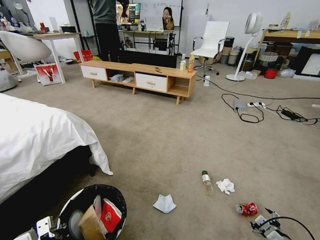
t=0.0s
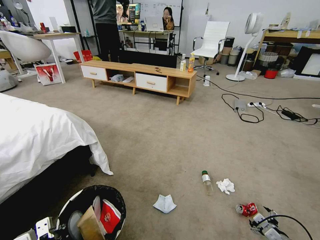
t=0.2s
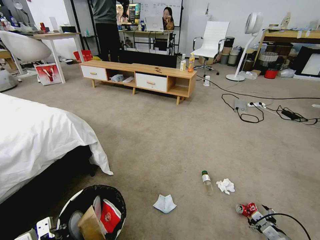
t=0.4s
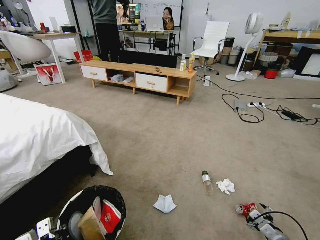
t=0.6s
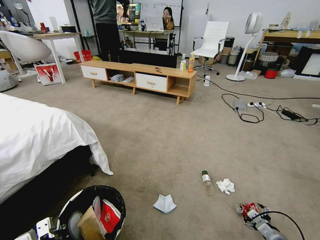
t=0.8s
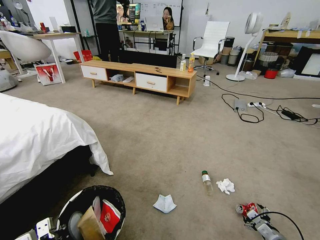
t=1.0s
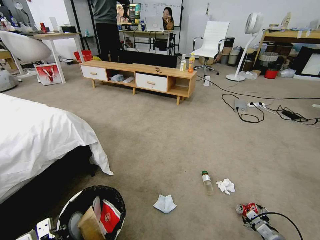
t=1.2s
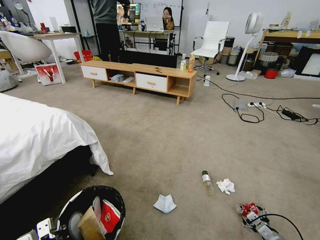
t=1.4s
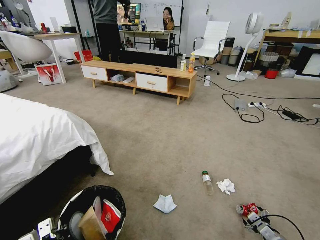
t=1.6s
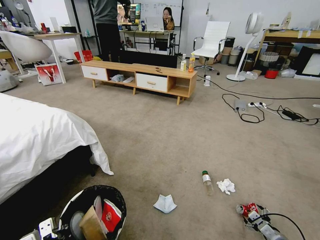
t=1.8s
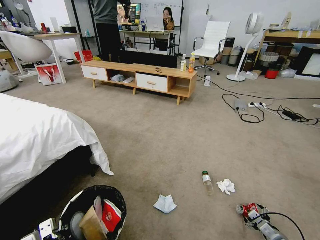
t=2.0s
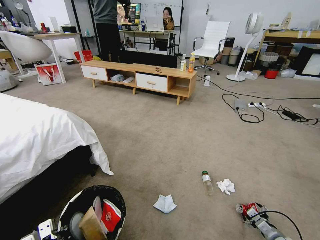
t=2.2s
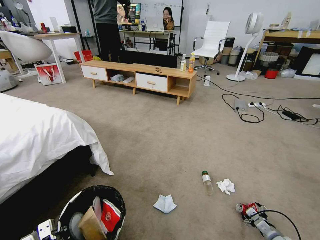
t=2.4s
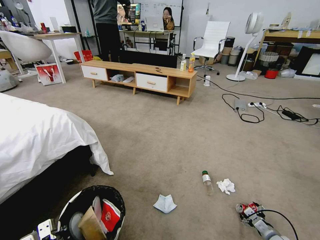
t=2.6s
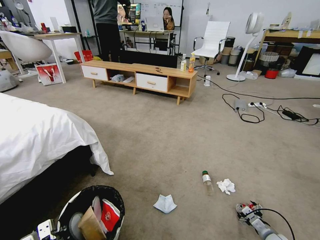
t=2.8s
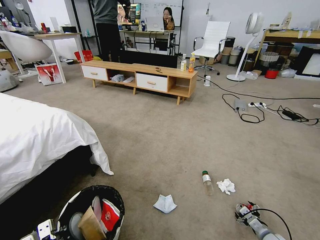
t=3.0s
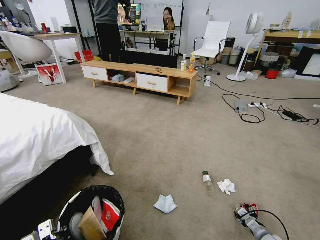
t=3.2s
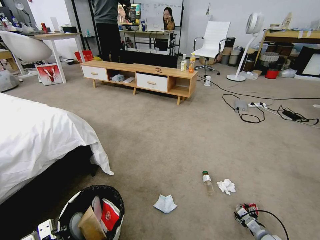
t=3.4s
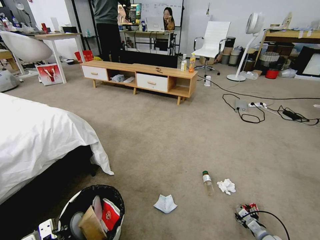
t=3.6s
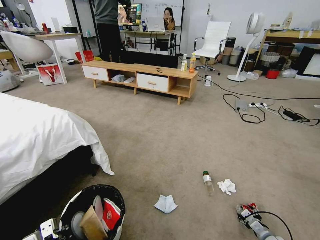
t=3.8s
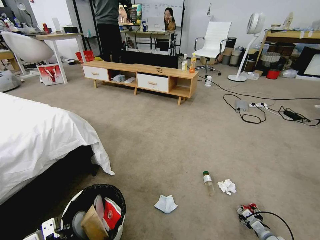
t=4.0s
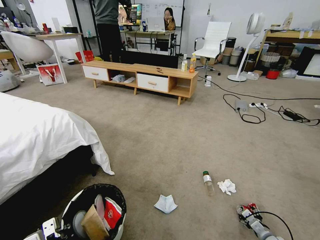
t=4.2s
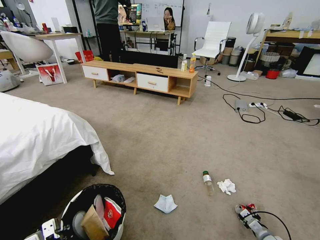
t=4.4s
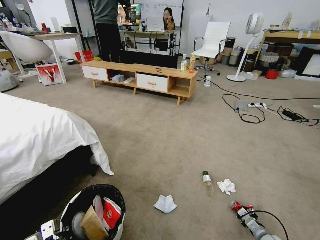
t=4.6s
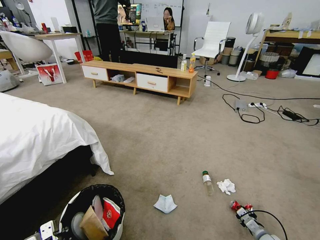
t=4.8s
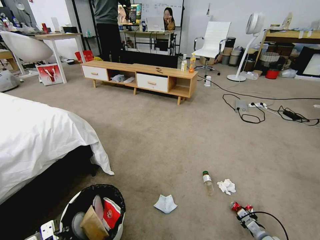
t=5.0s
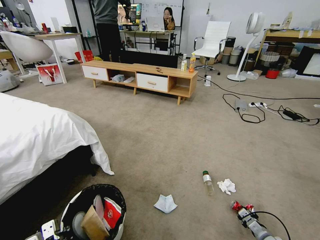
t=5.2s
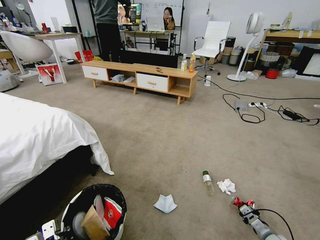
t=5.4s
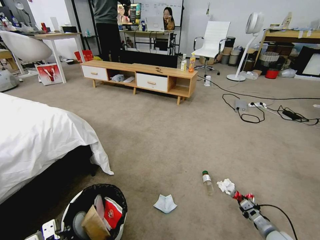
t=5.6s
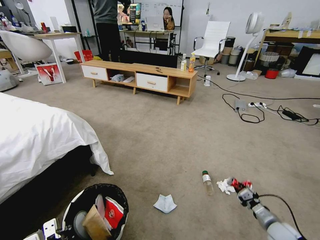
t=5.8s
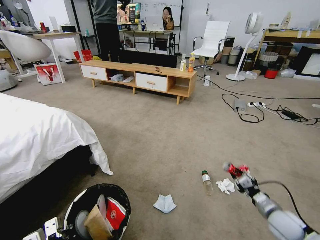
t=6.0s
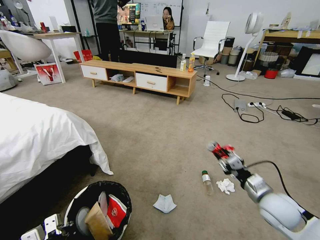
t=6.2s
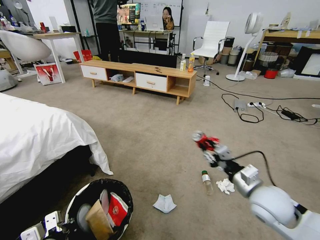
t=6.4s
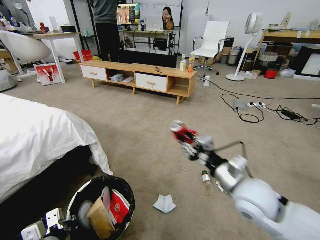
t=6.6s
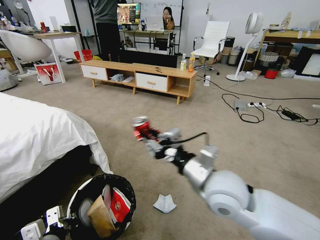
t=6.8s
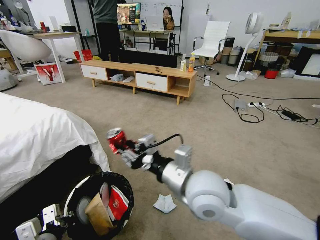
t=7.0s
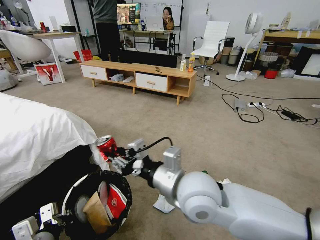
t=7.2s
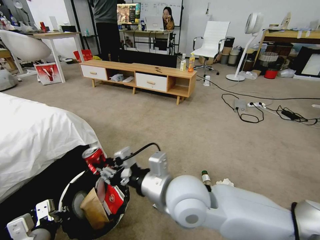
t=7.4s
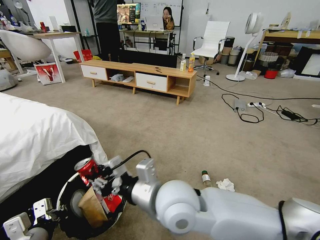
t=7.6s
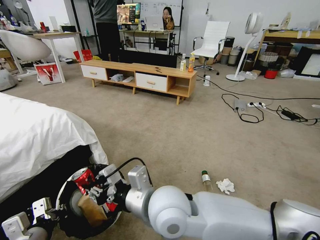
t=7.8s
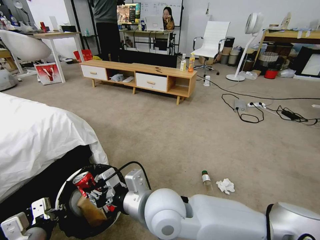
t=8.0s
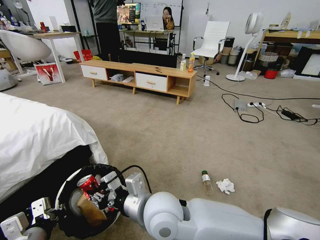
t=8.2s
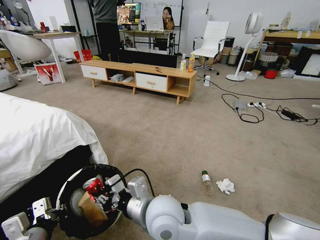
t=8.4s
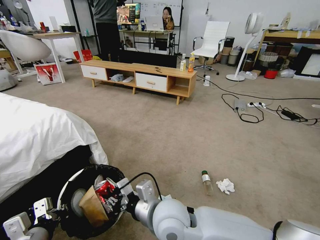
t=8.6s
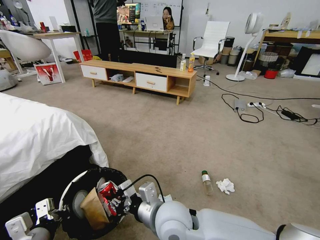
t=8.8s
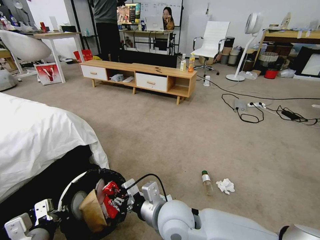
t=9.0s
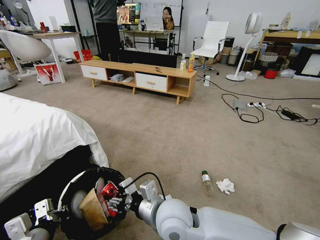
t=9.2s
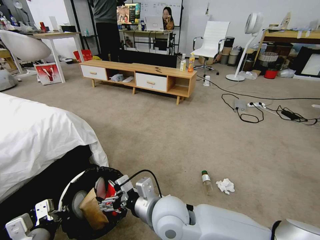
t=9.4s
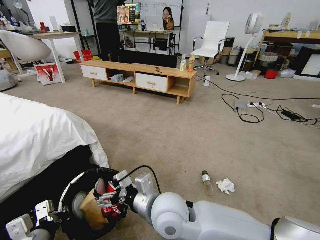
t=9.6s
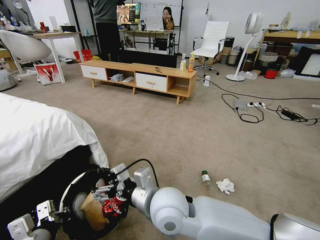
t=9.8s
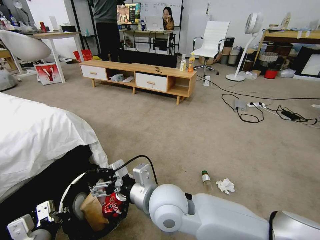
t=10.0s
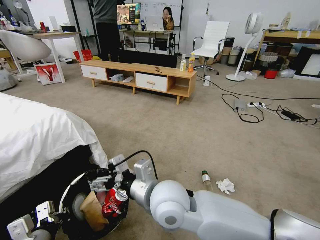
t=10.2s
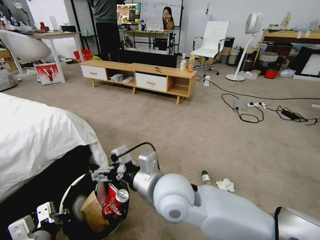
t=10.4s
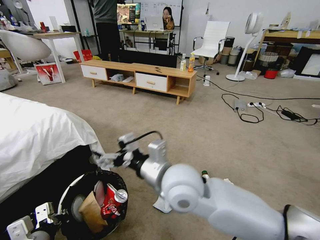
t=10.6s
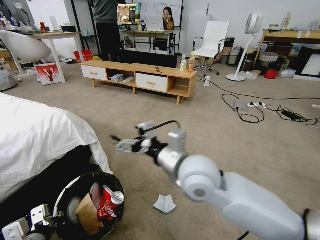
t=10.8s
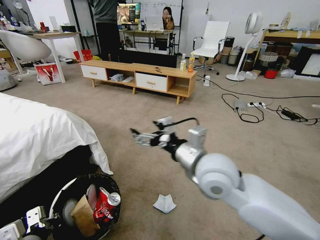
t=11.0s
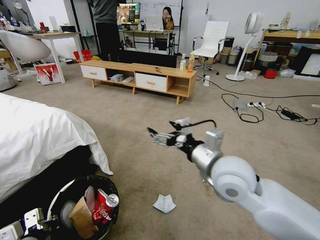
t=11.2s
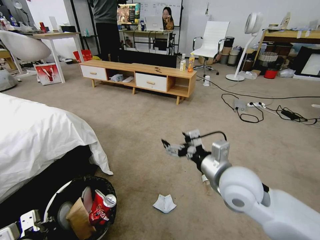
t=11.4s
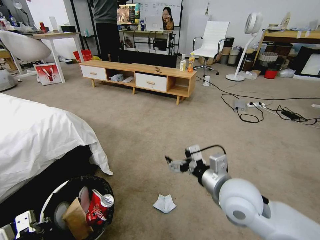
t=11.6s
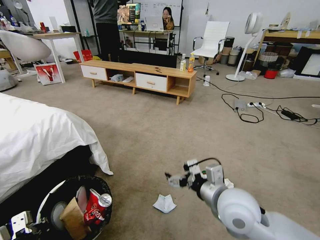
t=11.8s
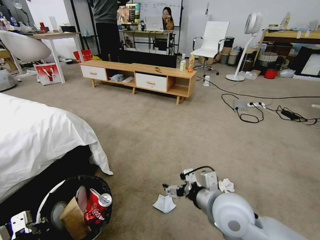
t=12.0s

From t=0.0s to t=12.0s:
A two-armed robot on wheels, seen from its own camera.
Task of the whole recording: Pick up the trash bin and place the garbage on the floor into it.
From t=0.0s to t=1.6s: The right gripper moves downward, approximately 5 cm.
From t=1.6s to t=3.0s: The right gripper changes place by some 5 cm.
From t=3.0s to t=4.4s: The grippers move only a little.
From t=4.4s to t=6.0s: The left gripper closes its fingers. The right gripper travels upward by some 20 cm, and closes up.
From t=6.0s to t=7.6s: The left gripper travels upward by about 5 cm, while the right gripper heads to the left and upward, covering about 40 cm.
From t=7.6s to t=9.0s: The right gripper goes approximately 10 cm downward.
From t=9.0s to t=10.4s: The right gripper heads upward, covering about 10 cm, and opens.
From t=10.4s to t=12.0s: The right gripper moves to the right and downward, some 15 cm.

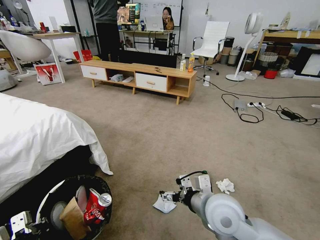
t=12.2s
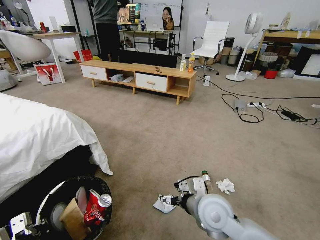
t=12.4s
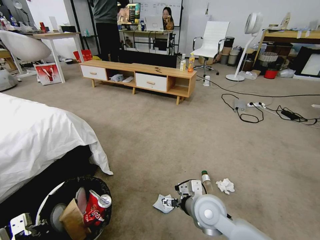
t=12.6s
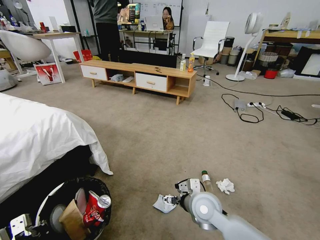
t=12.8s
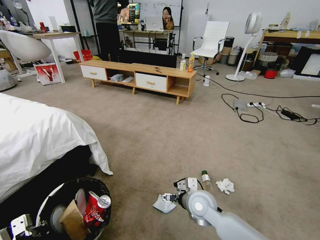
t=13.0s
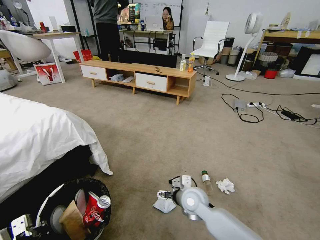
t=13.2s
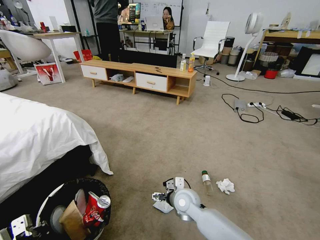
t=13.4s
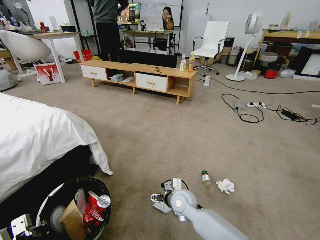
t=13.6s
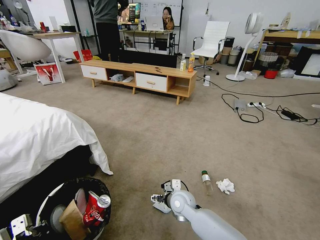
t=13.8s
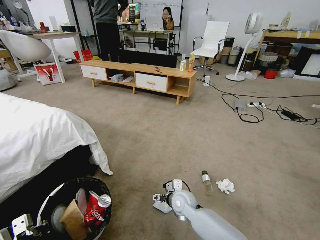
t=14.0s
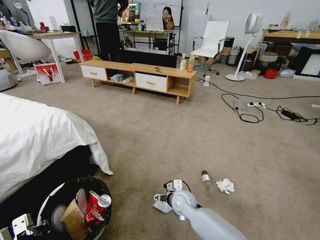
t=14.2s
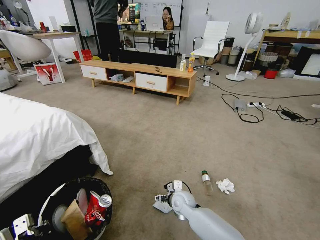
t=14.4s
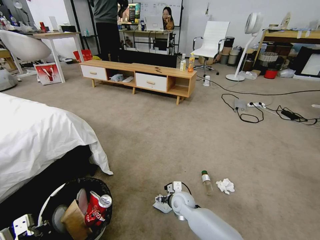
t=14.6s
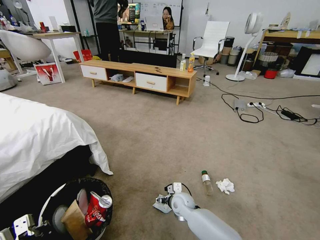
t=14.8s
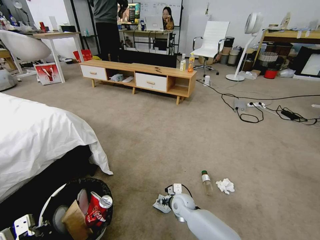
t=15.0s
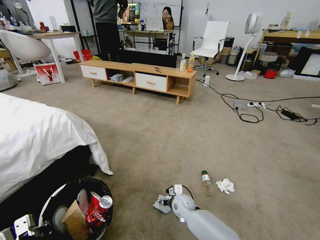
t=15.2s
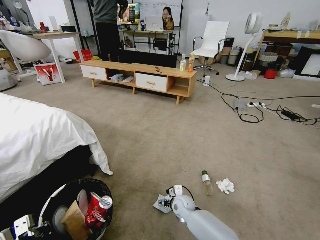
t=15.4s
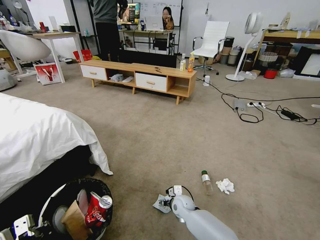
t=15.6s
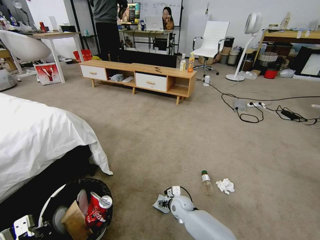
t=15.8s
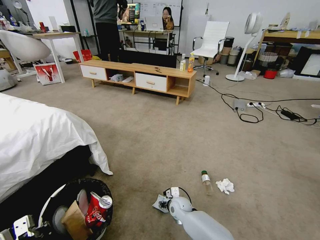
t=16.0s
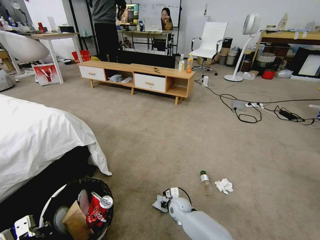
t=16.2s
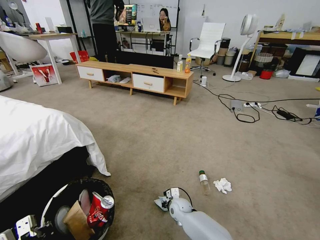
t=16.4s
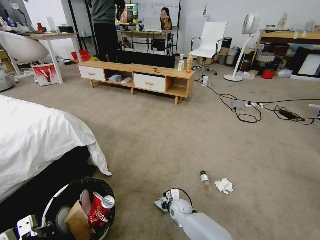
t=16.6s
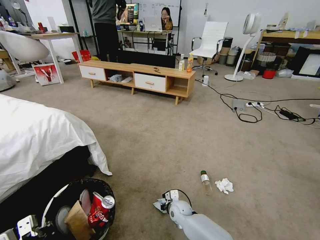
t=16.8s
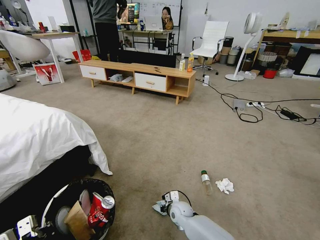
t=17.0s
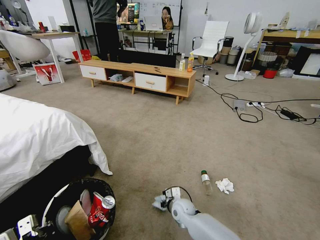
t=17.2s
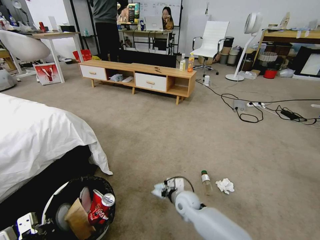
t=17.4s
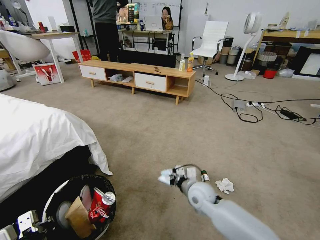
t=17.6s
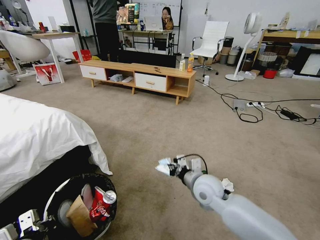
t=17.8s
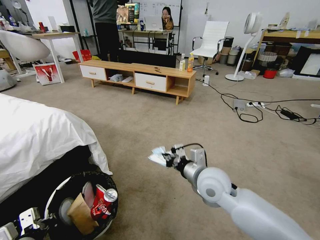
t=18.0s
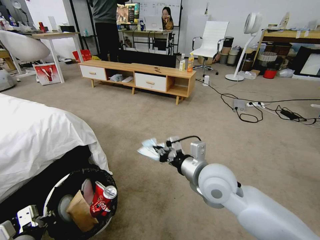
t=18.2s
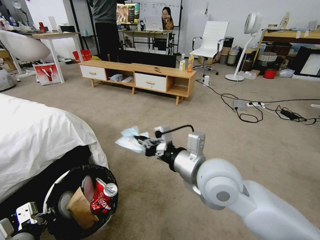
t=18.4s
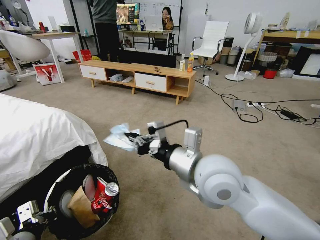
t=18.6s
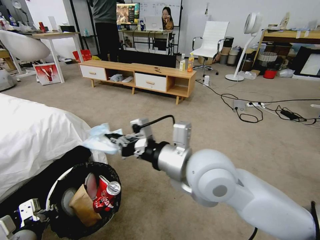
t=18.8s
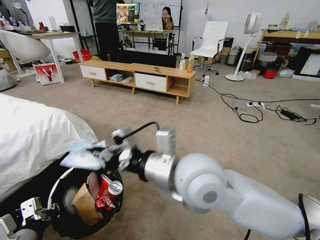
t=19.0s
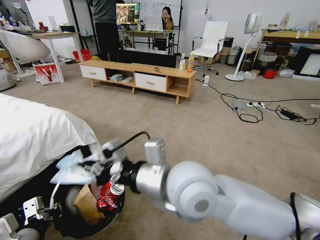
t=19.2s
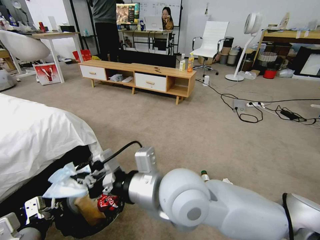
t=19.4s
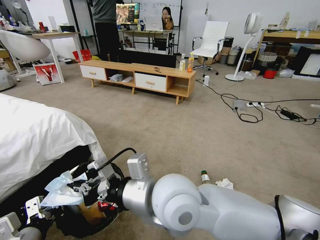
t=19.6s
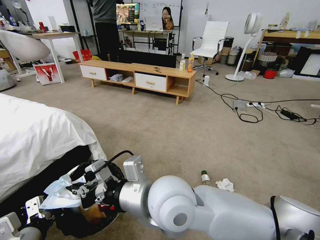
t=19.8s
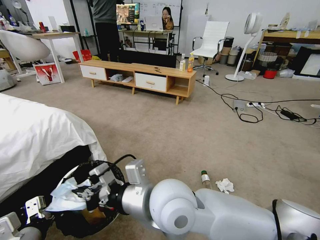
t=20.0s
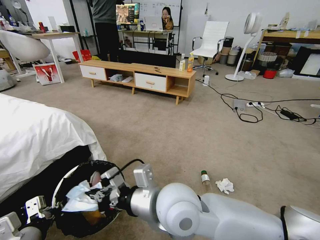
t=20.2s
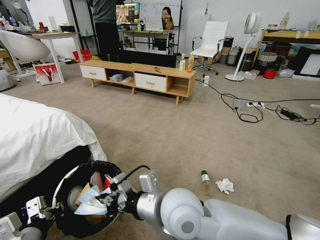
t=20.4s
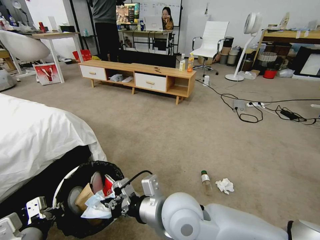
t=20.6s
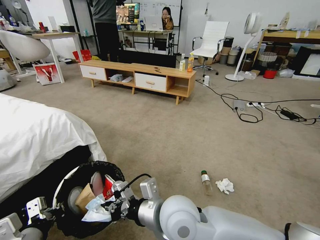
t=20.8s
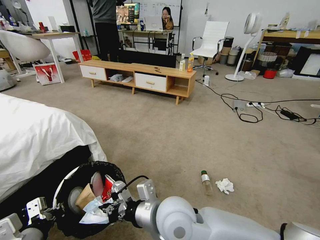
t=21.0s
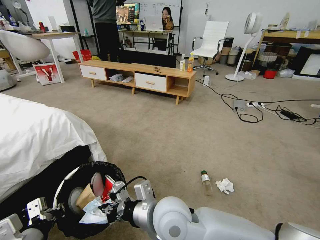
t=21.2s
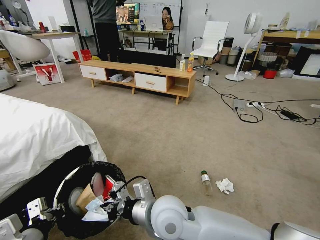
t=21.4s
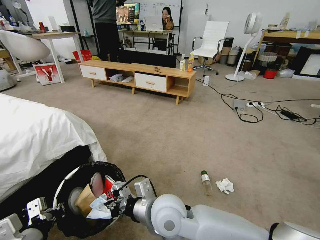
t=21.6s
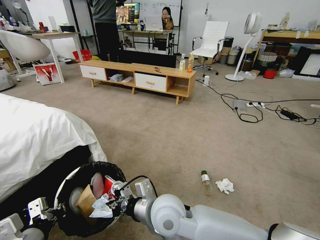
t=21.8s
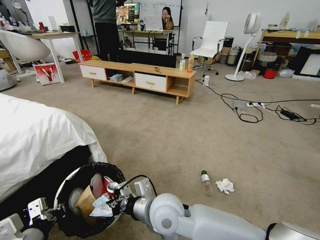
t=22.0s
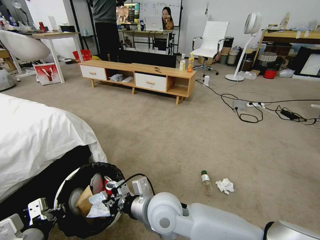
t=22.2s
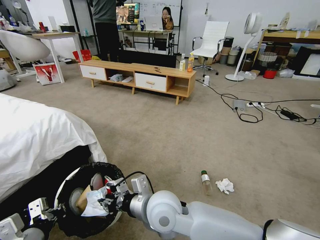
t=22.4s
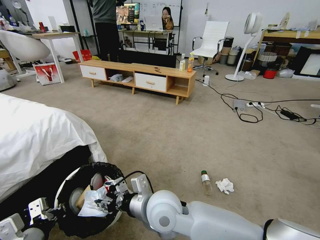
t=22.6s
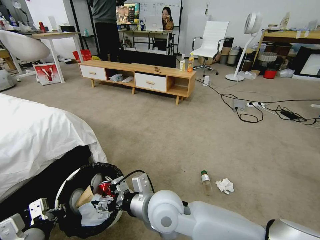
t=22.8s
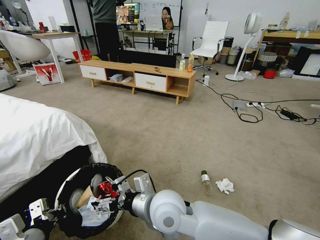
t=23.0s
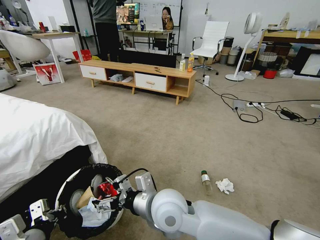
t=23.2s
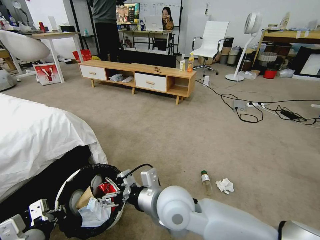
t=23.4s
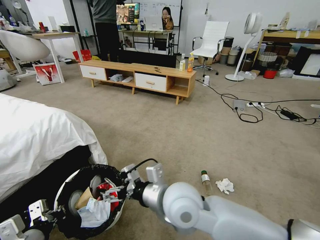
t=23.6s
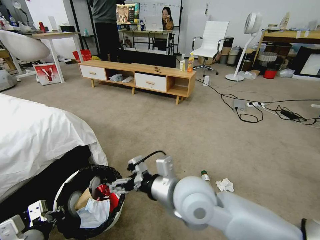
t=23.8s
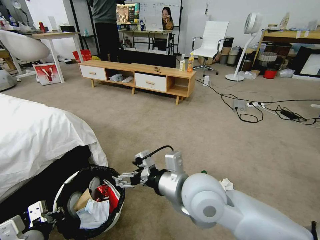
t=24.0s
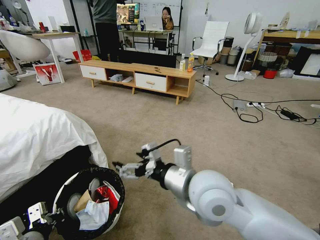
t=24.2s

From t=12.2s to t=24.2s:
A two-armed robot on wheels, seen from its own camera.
Task of the whole recording: Pick up the trash bin and place the garbage on the floor into it.
From t=12.2s to t=13.8s: The right gripper is displaced downward, forward and to the left by approximately 20 cm.
From t=13.8s to t=15.2s: The right gripper shifts about 10 cm downward.
From t=15.2s to t=16.6s: The right gripper closes up.
From t=16.6s to t=18.2s: The right gripper moves upward, roughly 35 cm.
From t=18.2s to t=19.8s: The right gripper goes approximately 15 cm to the left, backward and upward.
From t=19.8s to t=21.2s: The right gripper goes approximately 10 cm downward.
From t=21.2s to t=22.6s: The right gripper opens up.
From t=22.6s to t=24.2s: The right gripper moves upward and to the right, approximately 15 cm, and opens its fingers.
